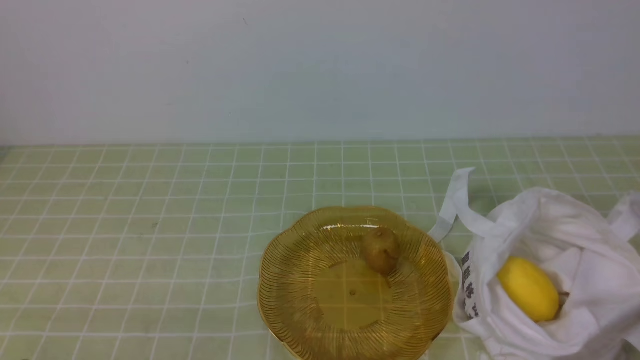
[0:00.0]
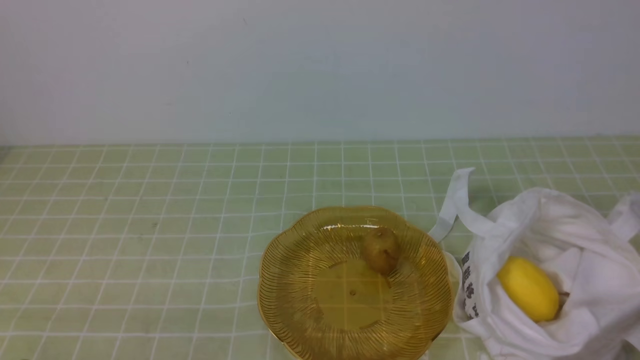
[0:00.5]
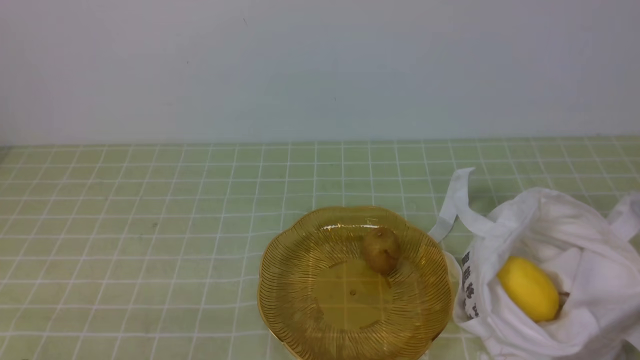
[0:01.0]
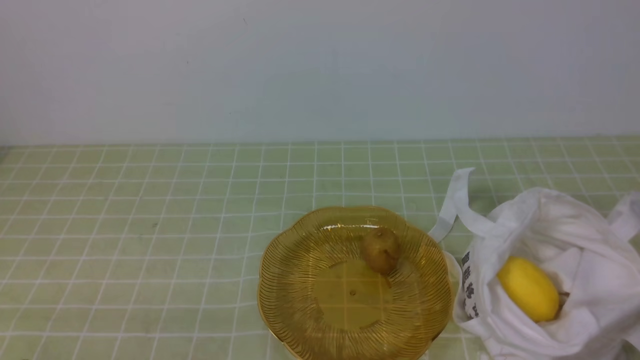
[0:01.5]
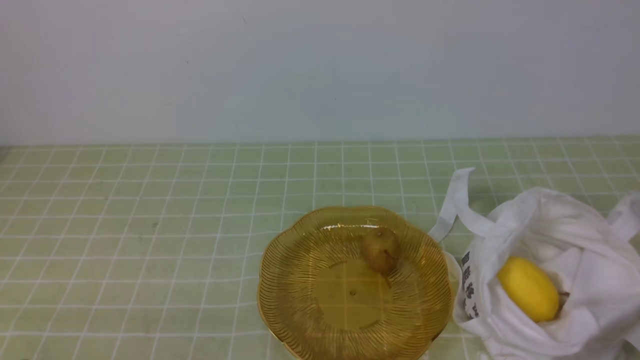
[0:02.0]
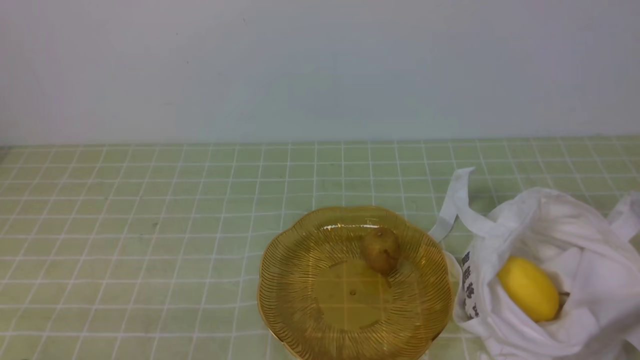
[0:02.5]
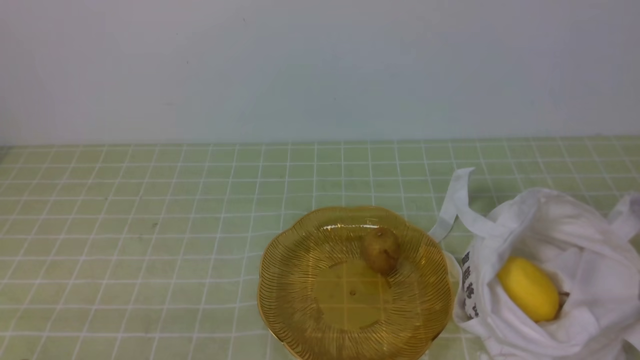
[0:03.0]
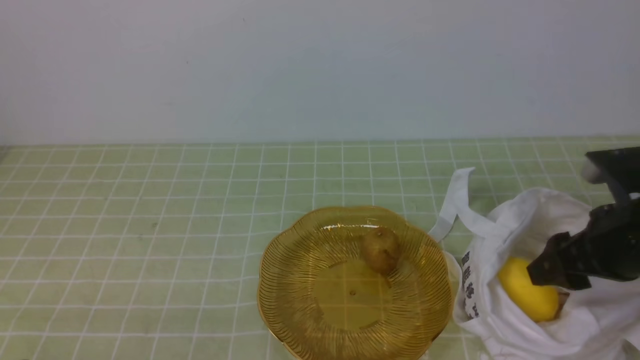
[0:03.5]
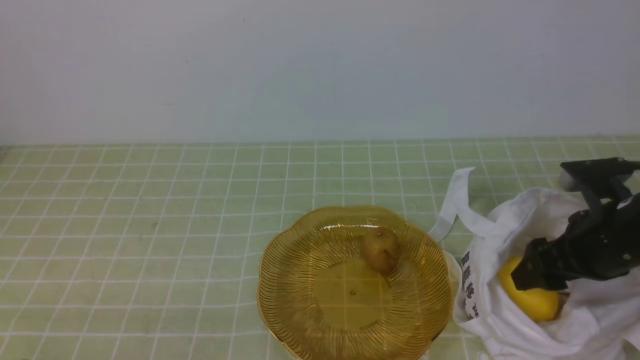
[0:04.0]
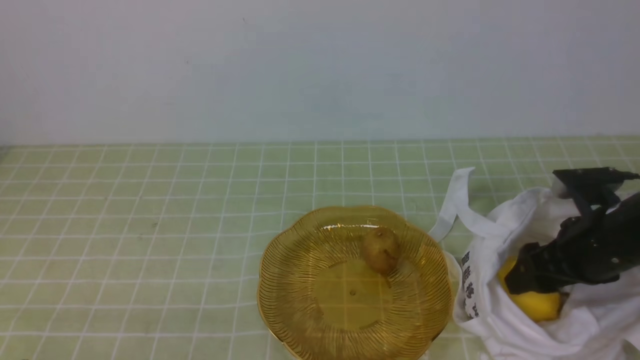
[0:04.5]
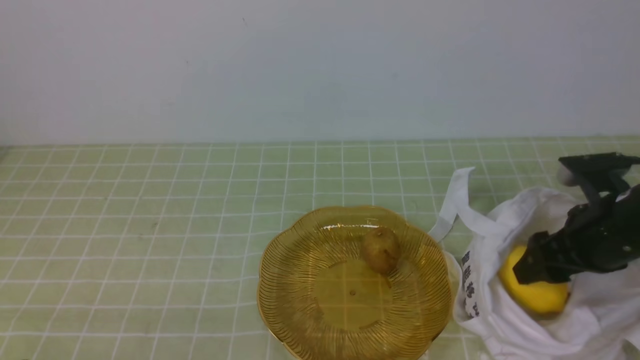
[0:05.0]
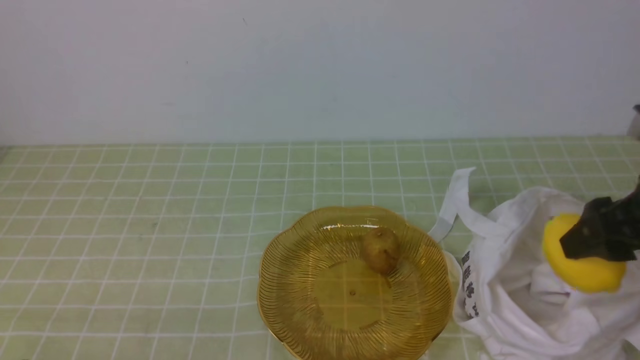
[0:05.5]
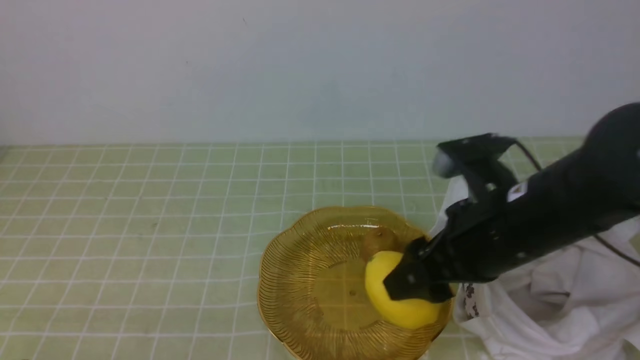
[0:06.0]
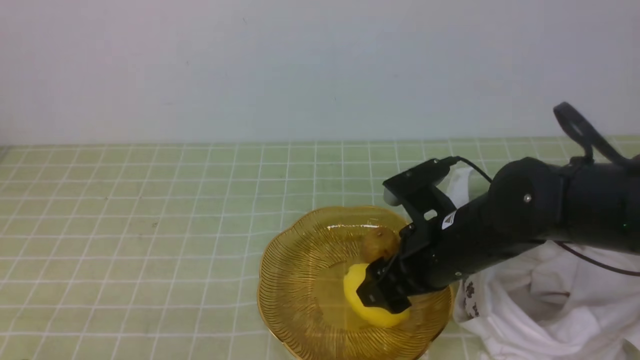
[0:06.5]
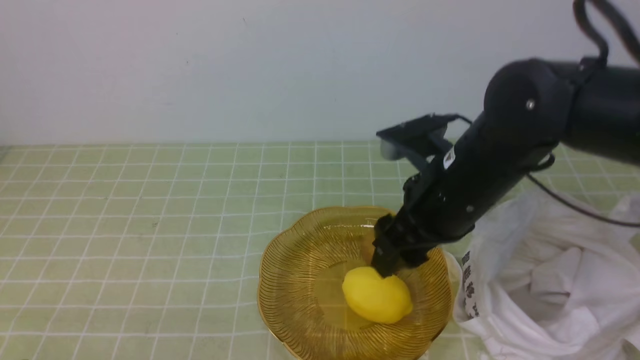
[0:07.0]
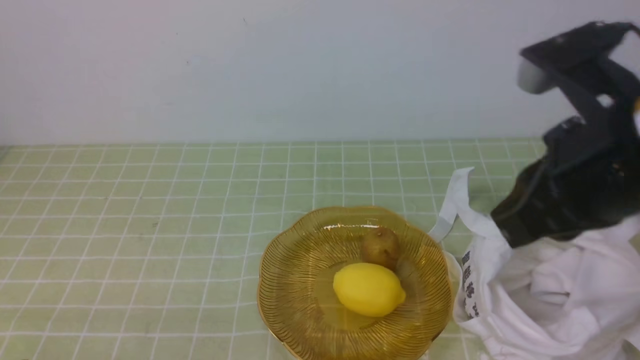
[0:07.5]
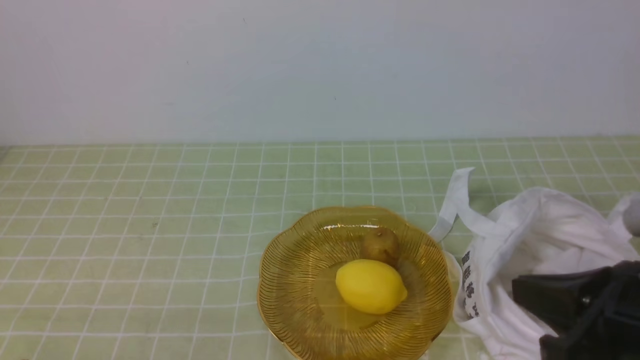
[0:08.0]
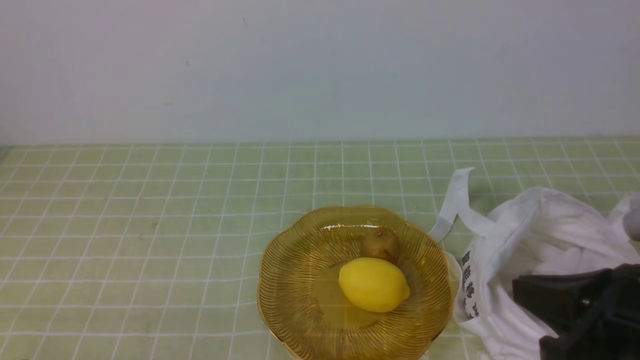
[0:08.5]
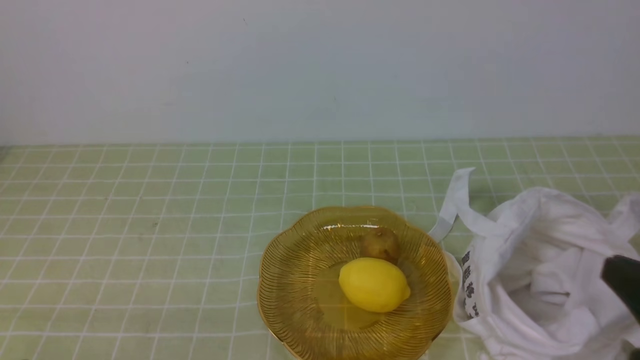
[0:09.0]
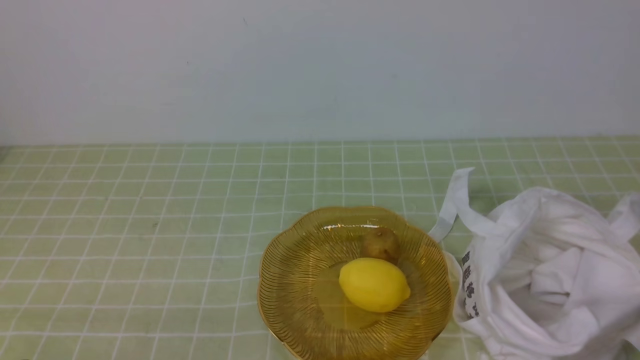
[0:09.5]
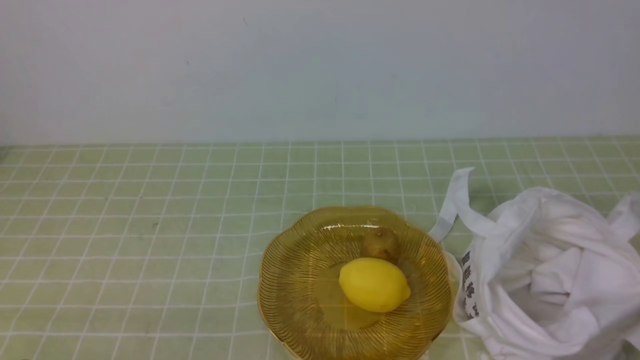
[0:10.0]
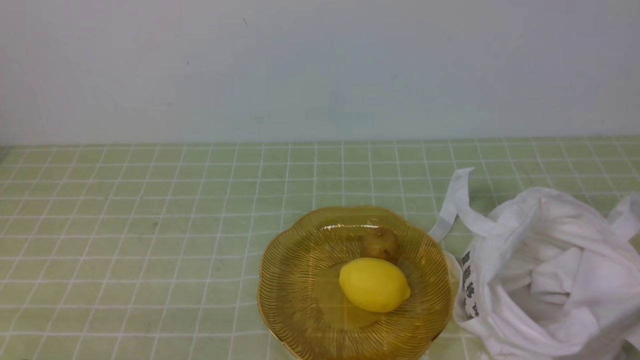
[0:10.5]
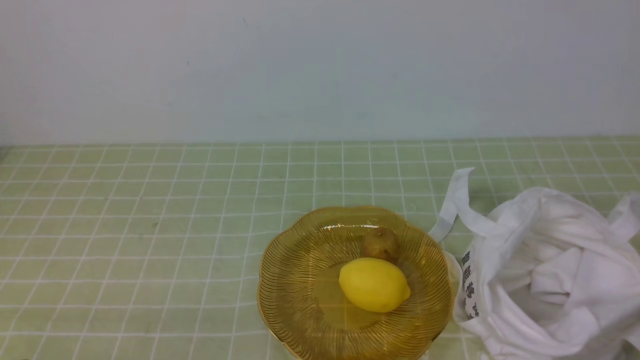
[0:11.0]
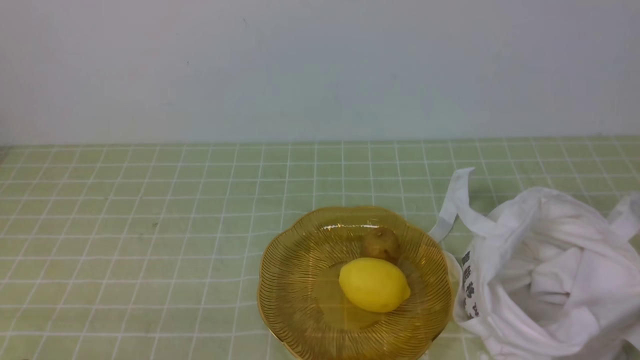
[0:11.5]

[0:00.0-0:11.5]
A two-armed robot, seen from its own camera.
Step, 0:00.0 to 0:05.0: use the right arm to grab a lemon from the bag.
Step, 0:05.5 to 0:06.5: use the right arm to put the lemon into the empty plate on the left.
0:02.0 to 0:04.0: The right gripper heads forward, covering roughly 20 cm, and opens up.
0:04.0 to 0:06.0: The right gripper shifts roughly 15 cm to the left and upward.
0:06.0 to 0:07.5: The right gripper heads upward and backward, covering some 10 cm, and closes.
0:07.5 to 0:09.5: The right gripper shifts roughly 20 cm downward, backward and to the right.
0:09.5 to 0:11.5: Both grippers stay put.

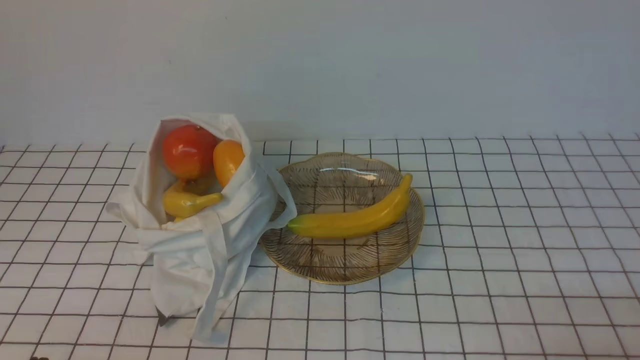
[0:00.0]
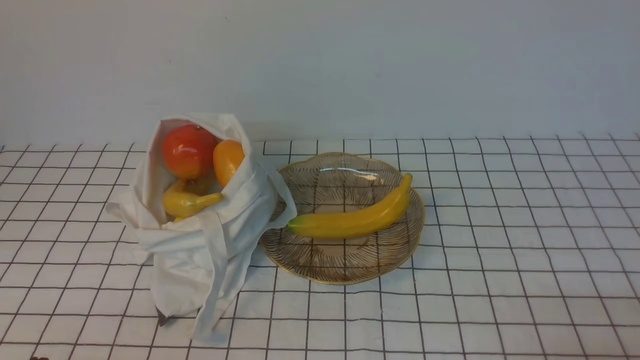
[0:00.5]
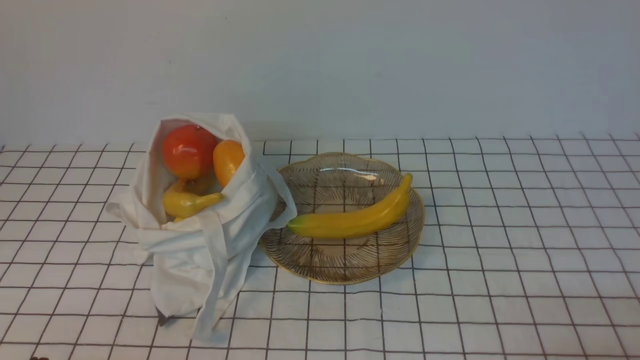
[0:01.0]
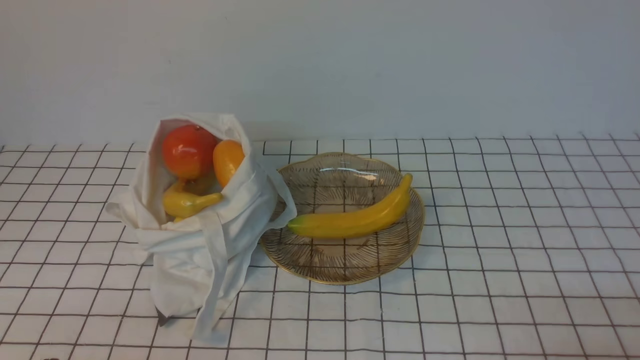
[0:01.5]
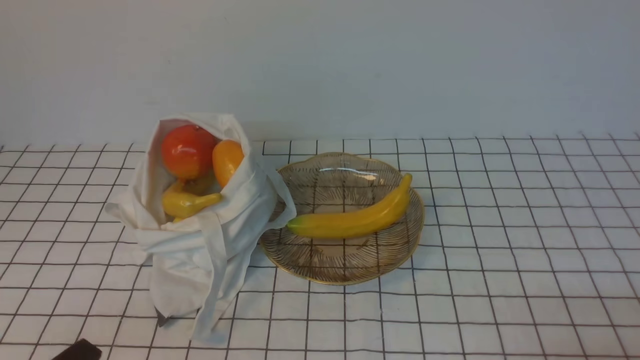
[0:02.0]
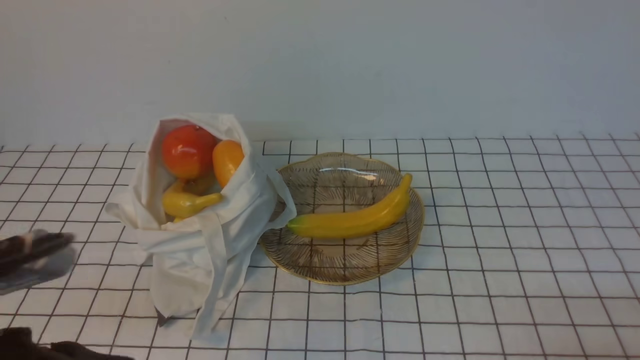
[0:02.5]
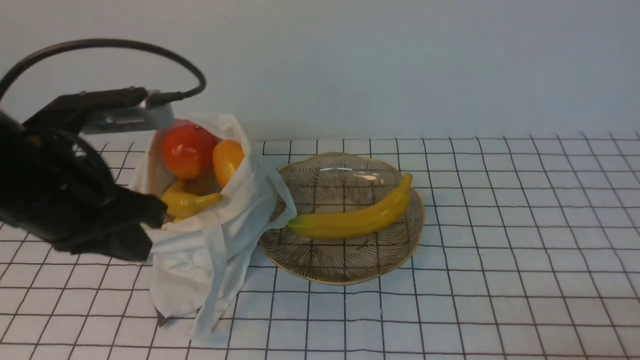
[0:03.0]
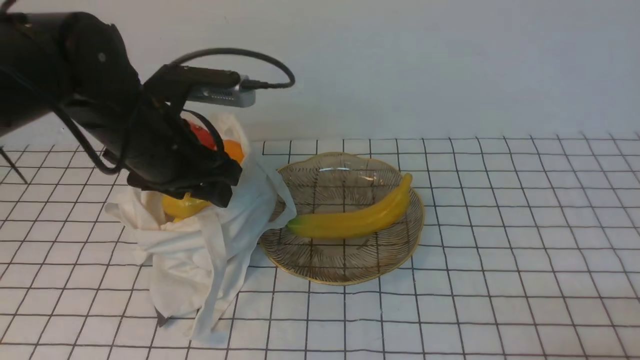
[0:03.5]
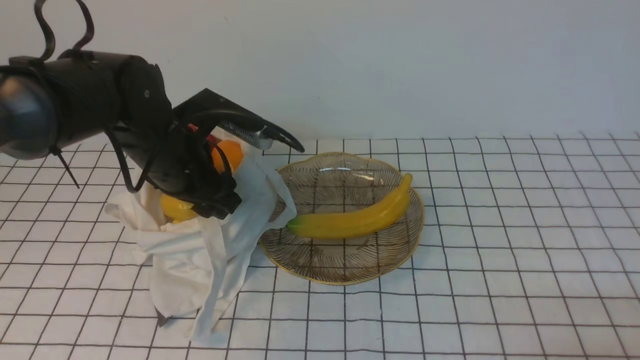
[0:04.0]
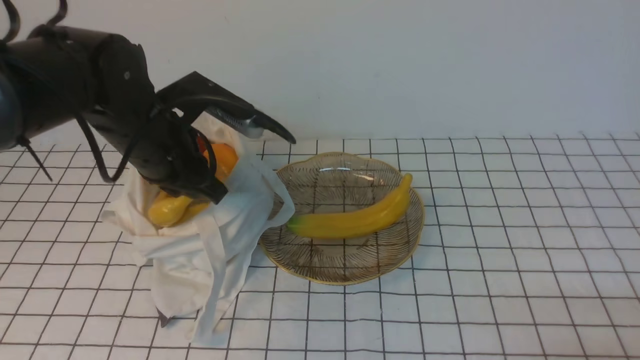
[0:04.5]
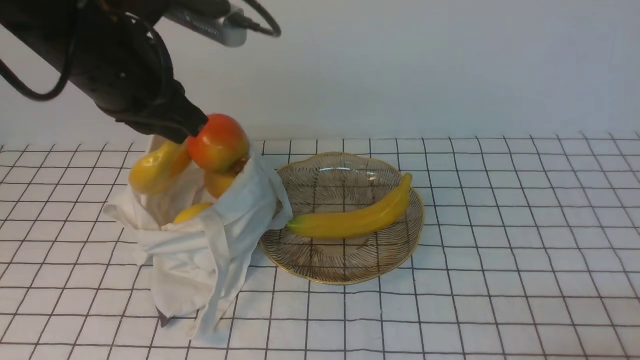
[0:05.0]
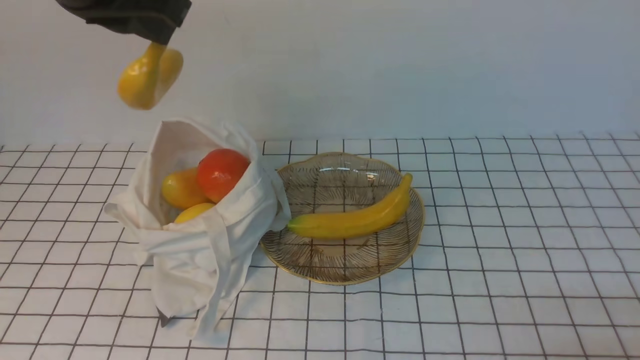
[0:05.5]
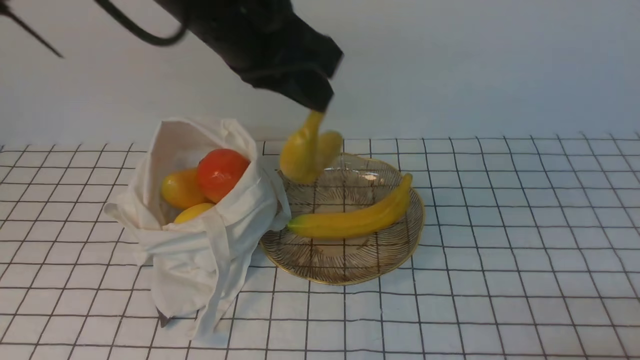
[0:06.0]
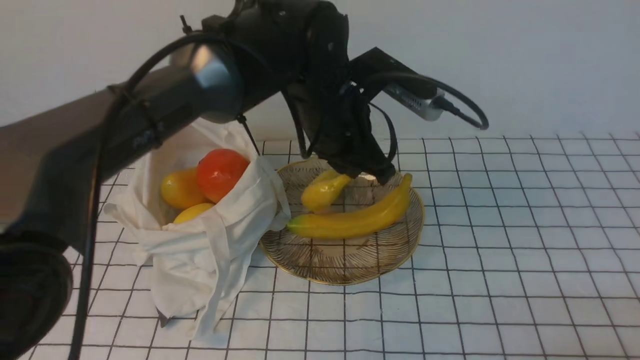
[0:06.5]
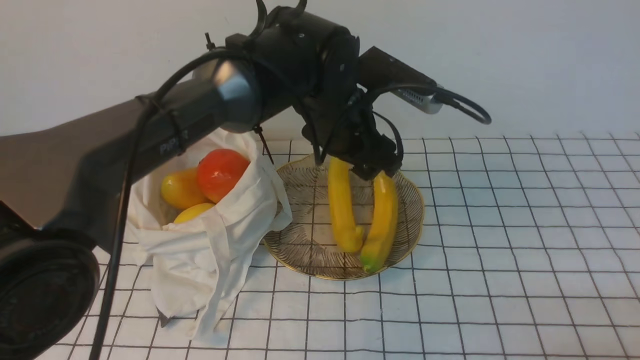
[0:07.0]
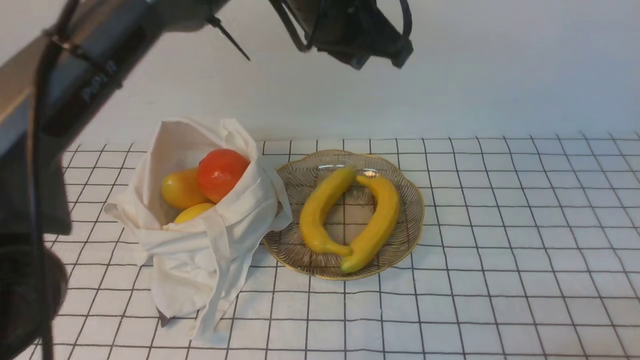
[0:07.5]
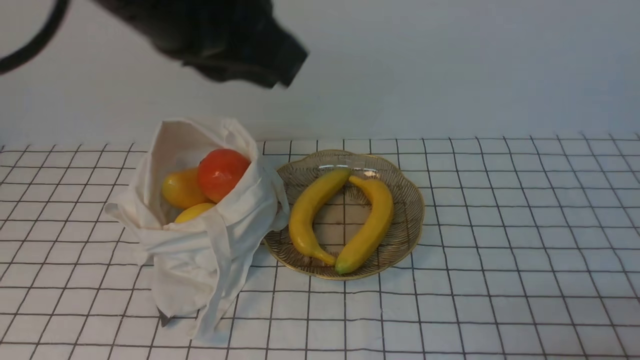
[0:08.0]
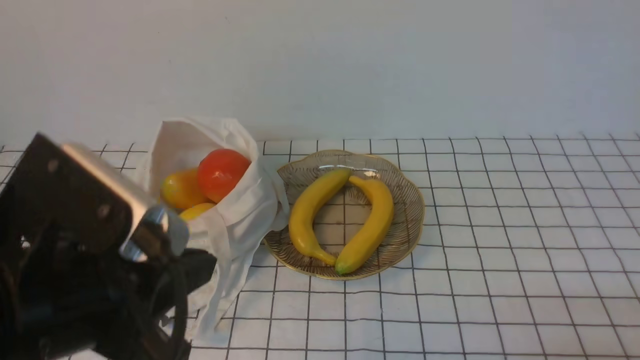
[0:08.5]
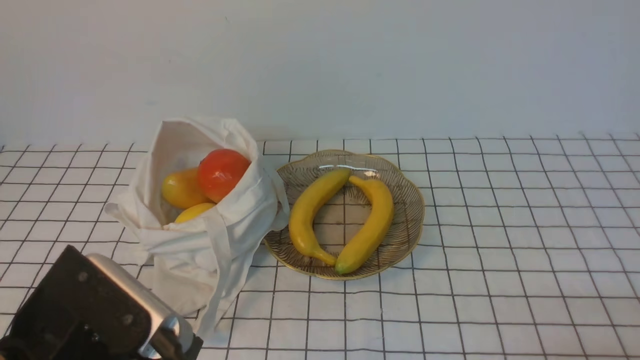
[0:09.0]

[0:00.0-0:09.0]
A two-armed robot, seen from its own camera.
Step, 0:00.0 to 0:04.5: use the left arm to grab a banana from the bag.
Step, 0:05.0 to 0:07.0: use the left arm to put the banana into the empty plate on the right.
0:02.0 to 0:04.5: The left gripper is displaced forward by approximately 30 cm, and opens, then closes again.
0:04.5 to 0:07.0: The left gripper moves to the right, approximately 20 cm, moves roughly 20 cm upward and comes back, and opens.
0:07.0 to 0:09.0: The left gripper heads backward and to the left, covering some 35 cm, and closes up.
